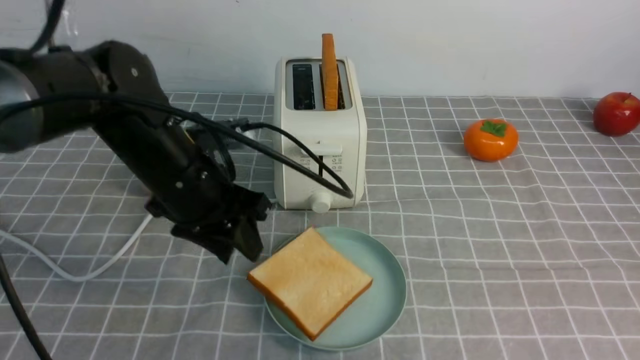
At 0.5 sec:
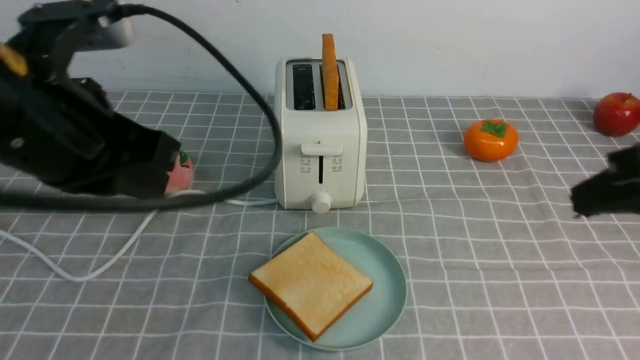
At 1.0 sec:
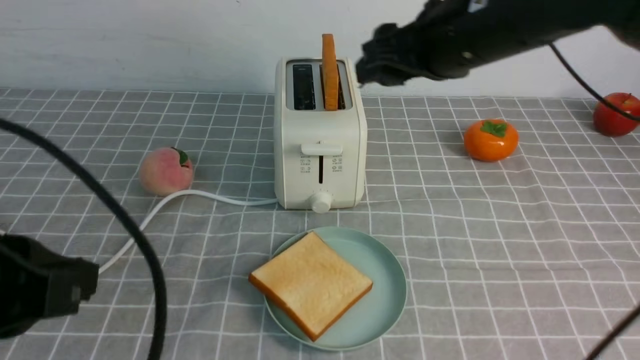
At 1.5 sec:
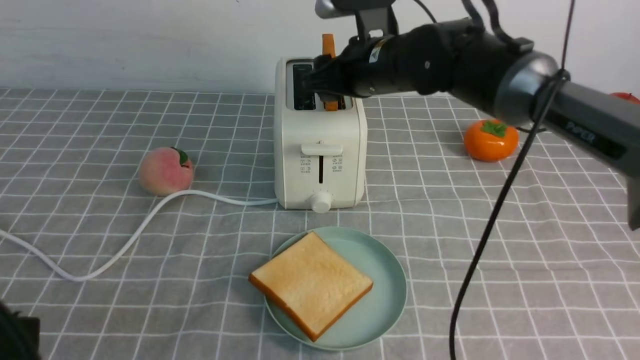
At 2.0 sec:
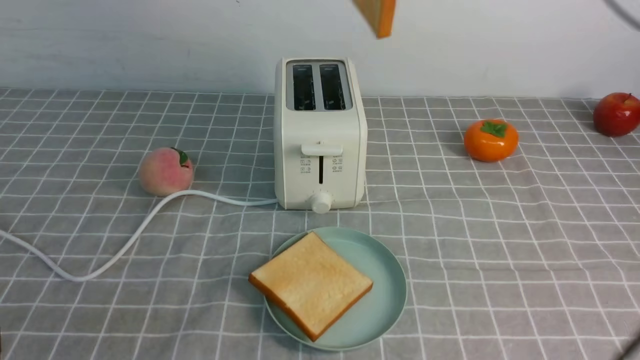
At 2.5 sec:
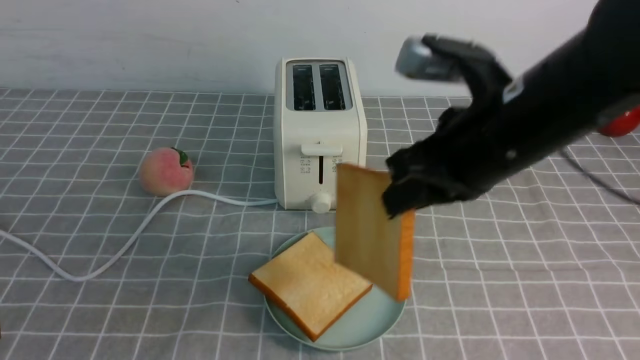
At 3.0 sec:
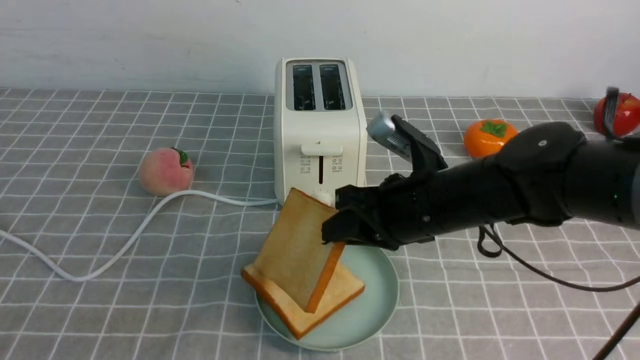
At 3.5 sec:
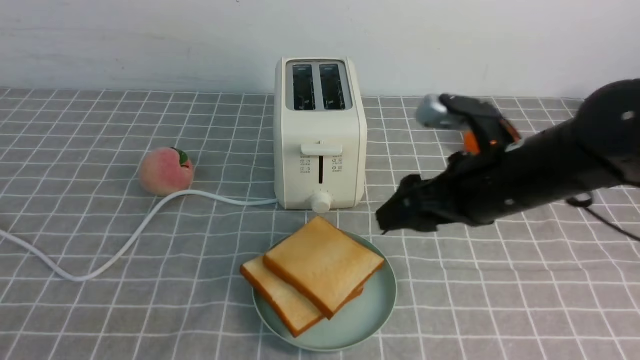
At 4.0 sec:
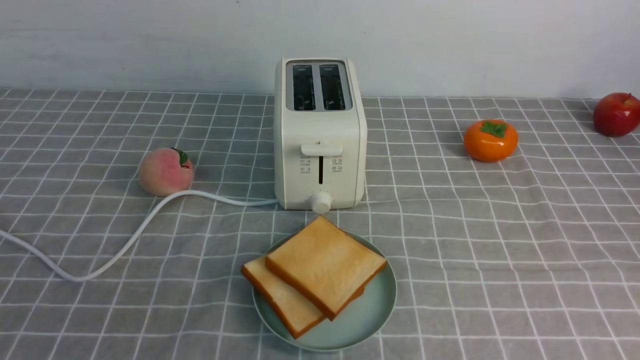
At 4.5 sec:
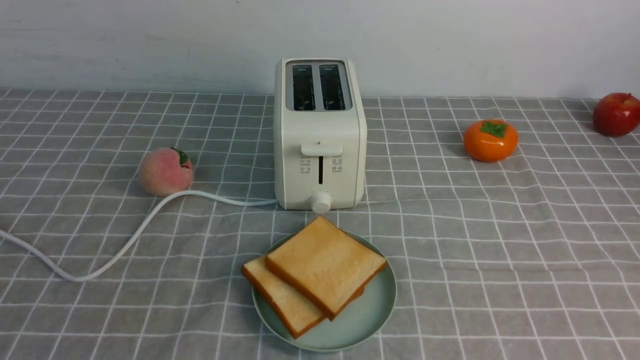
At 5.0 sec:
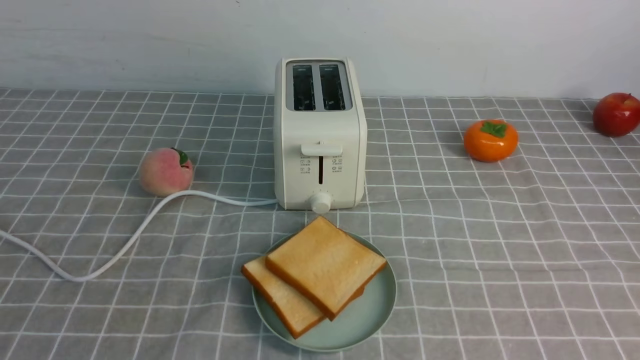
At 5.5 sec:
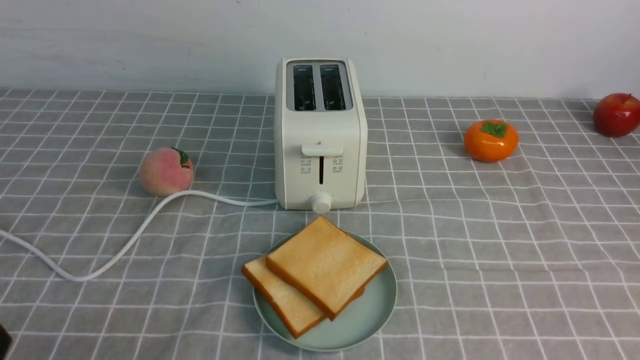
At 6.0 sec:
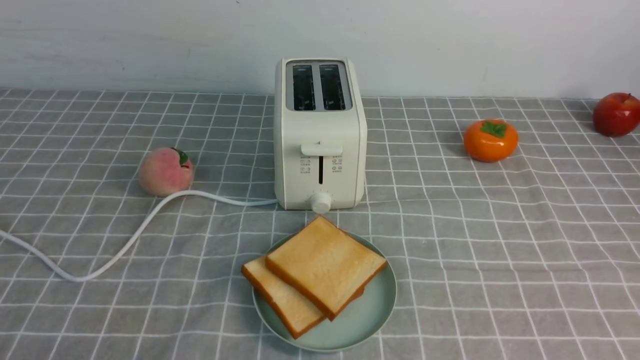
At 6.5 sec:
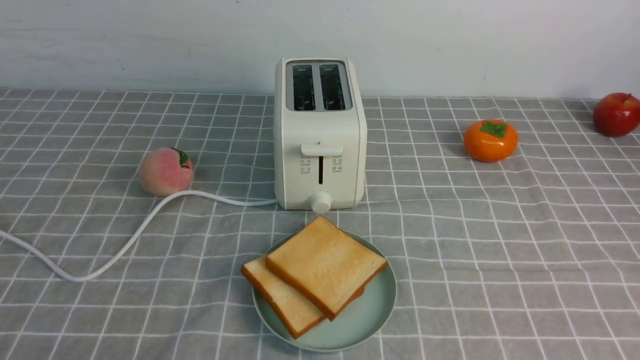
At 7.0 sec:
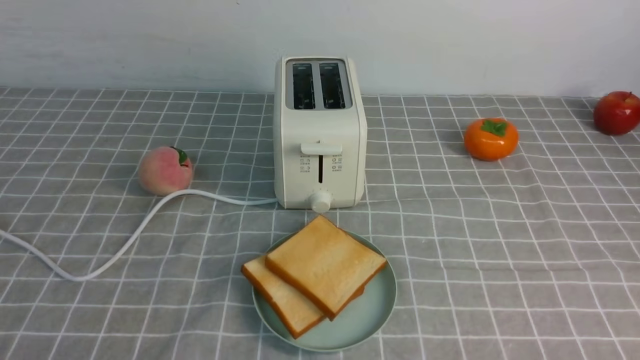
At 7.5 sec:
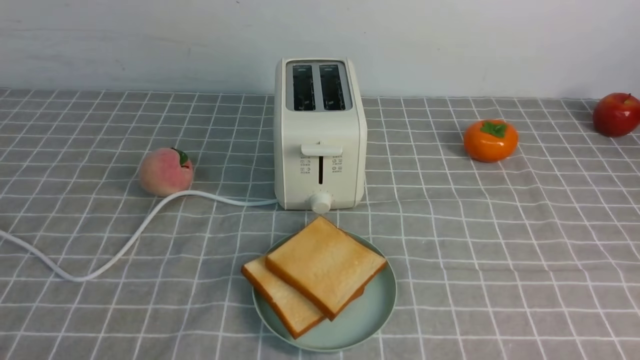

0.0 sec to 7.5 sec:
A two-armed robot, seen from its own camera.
Task of the whole recording: take toasted bread from bread machine on grey coffee table place on plate.
Step, 0.5 sec to 2.0 sec: use the right arm to take out a slice of bread.
Step, 2.5 sec to 3.5 sec: use the right arm to put a slice of bread into the plate.
0.0 sec to 2.0 sec: The left gripper moves backward, approximately 25 cm, and closes; the right gripper is displaced forward, to the left and upward by approximately 30 cm, and opens, then closes once more.
2.0 sec to 4.0 sec: The right gripper shifts about 30 cm backward and to the right, and opens, then closes once more.
4.0 sec to 5.5 sec: The right gripper heads downward and backward, covering approximately 10 cm. Meanwhile the left gripper shifts about 15 cm downward.
